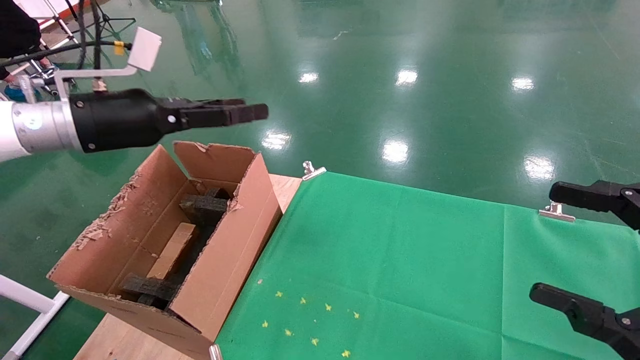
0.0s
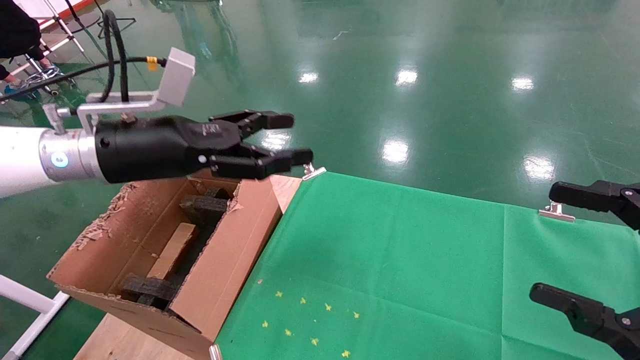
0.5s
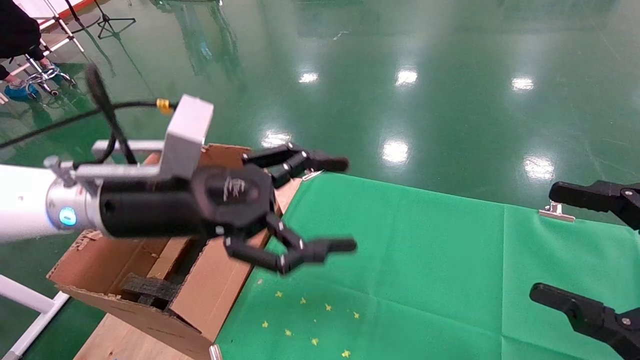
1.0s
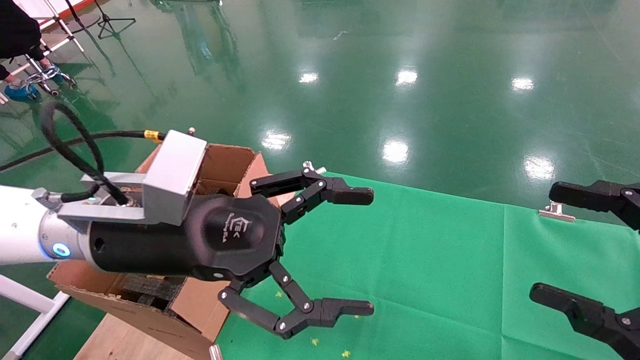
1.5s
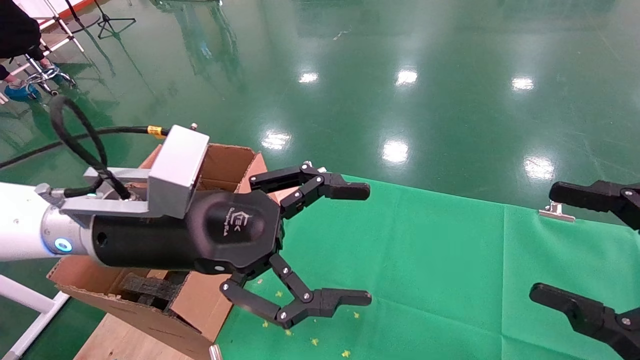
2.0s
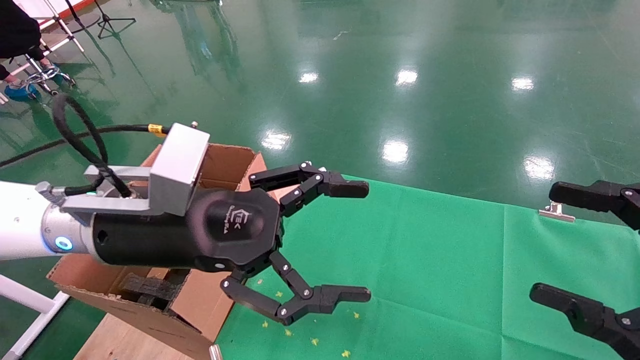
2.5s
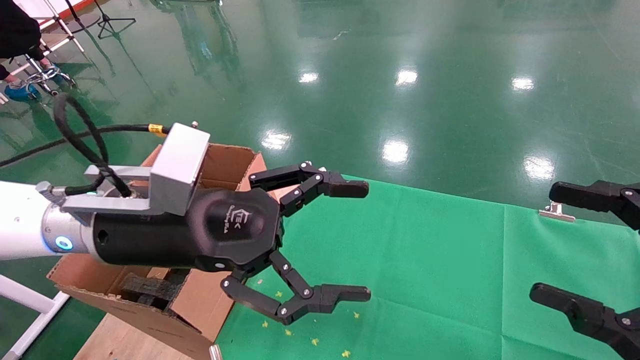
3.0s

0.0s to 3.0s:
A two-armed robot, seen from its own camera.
Task of the whole recording: using a robotic arm to pick up a cardboard box and palace it the carton.
0.0s to 1.5s: The left gripper travels to the right, backward and downward by roughly 20 cm.
1.5s to 3.0s: Both grippers stay put.
